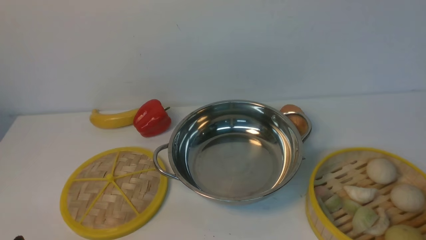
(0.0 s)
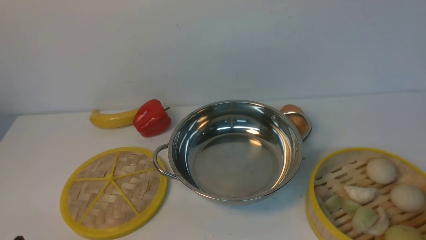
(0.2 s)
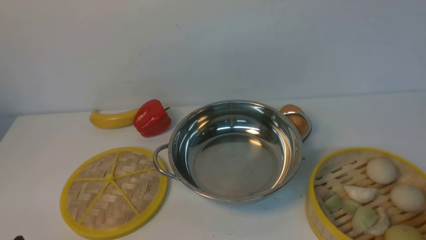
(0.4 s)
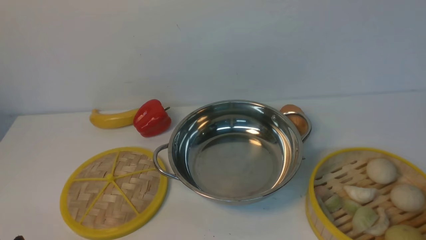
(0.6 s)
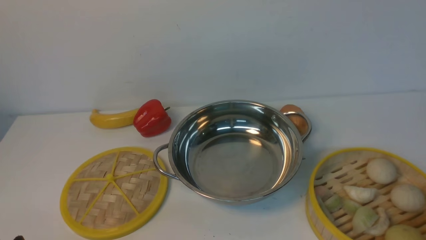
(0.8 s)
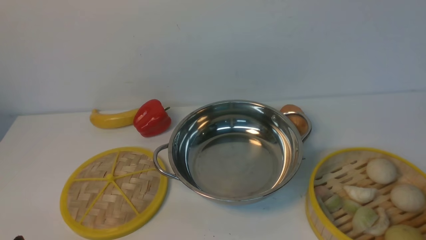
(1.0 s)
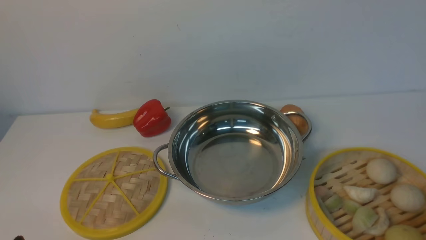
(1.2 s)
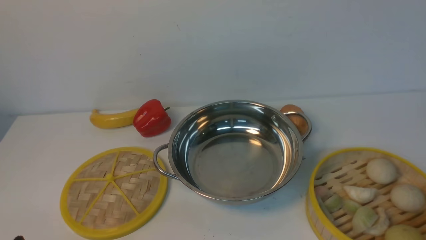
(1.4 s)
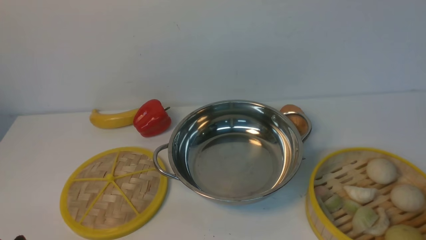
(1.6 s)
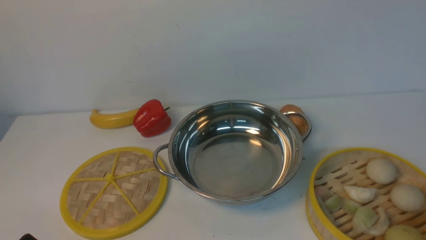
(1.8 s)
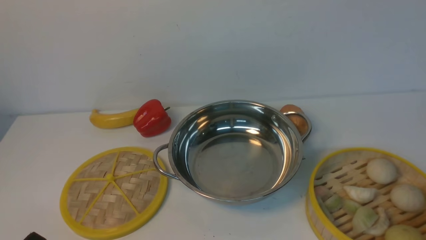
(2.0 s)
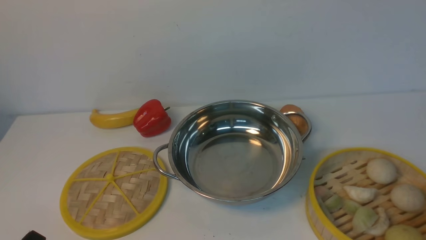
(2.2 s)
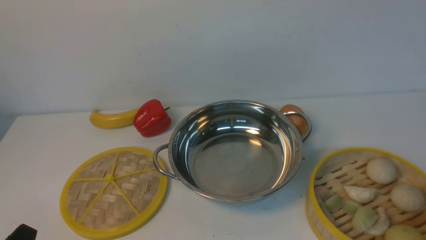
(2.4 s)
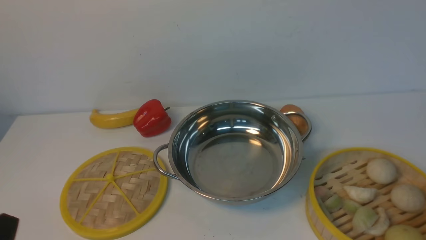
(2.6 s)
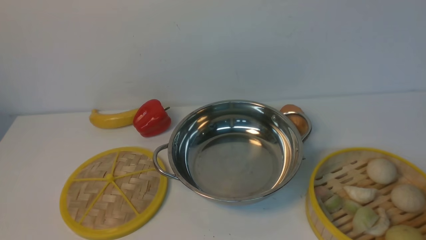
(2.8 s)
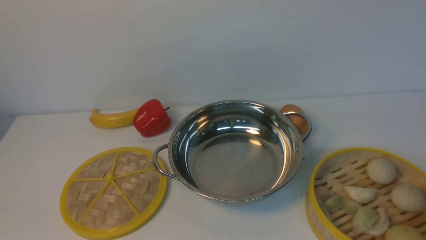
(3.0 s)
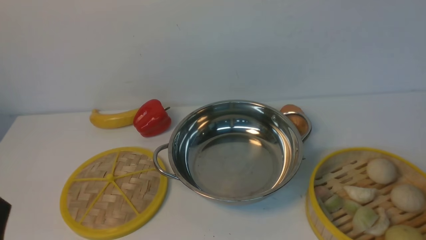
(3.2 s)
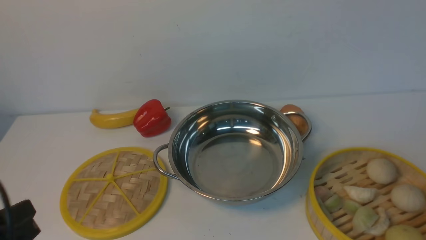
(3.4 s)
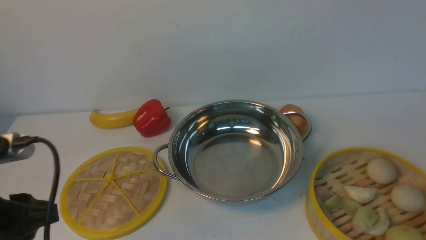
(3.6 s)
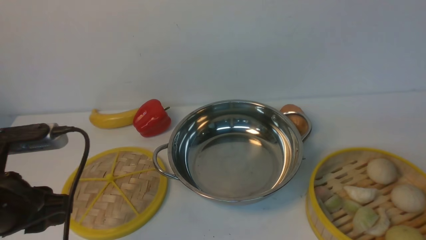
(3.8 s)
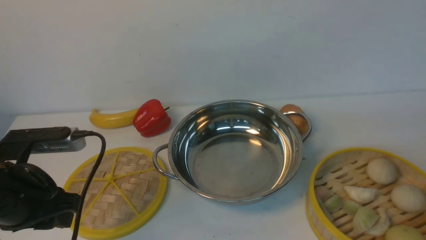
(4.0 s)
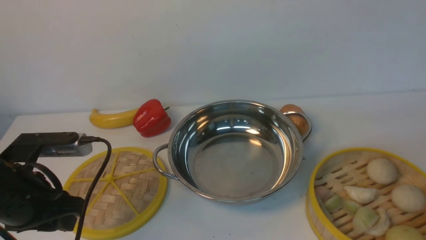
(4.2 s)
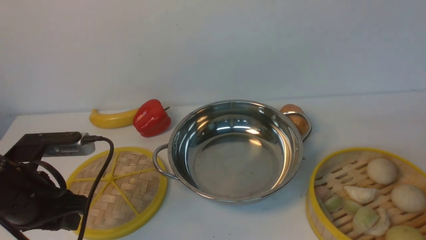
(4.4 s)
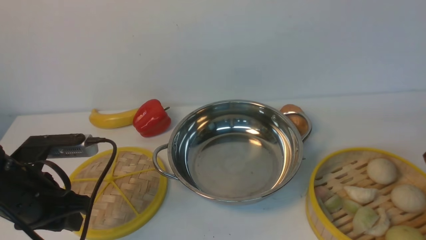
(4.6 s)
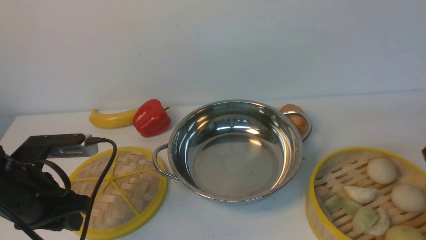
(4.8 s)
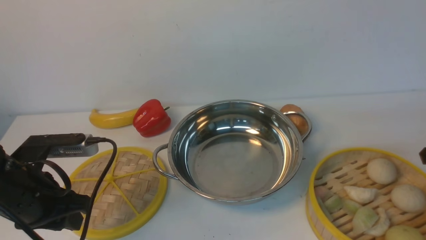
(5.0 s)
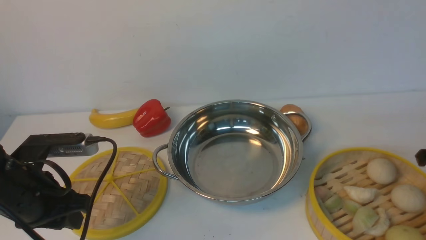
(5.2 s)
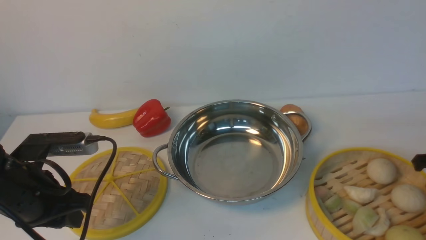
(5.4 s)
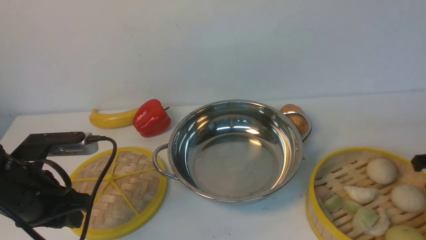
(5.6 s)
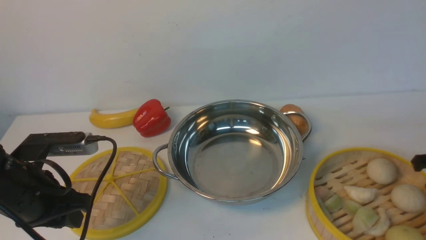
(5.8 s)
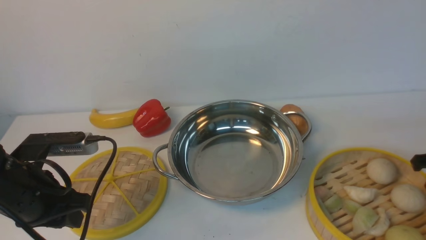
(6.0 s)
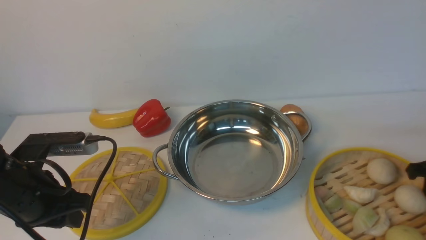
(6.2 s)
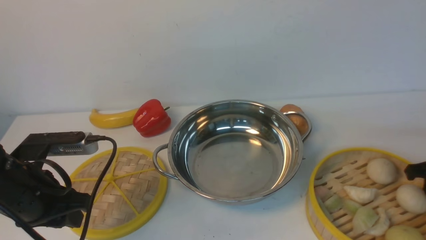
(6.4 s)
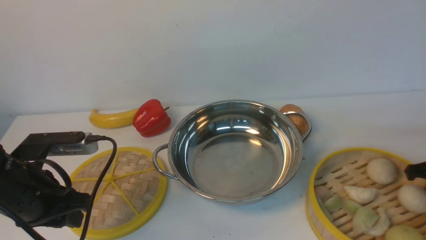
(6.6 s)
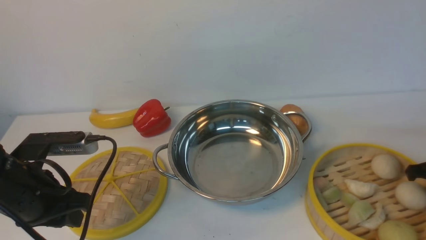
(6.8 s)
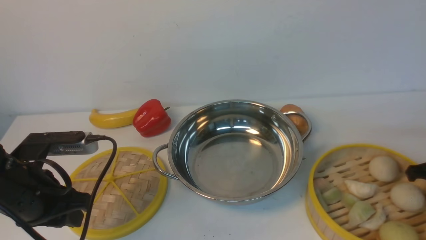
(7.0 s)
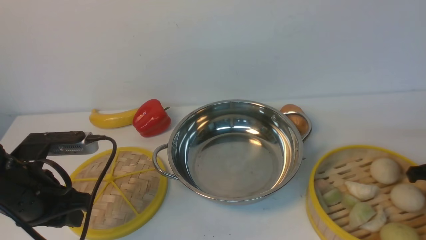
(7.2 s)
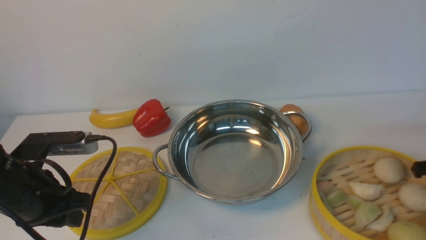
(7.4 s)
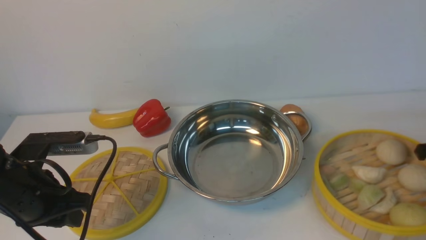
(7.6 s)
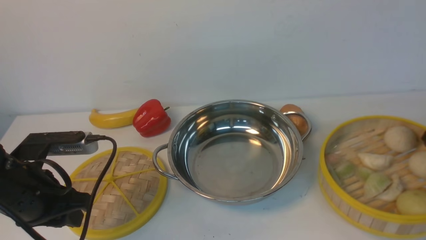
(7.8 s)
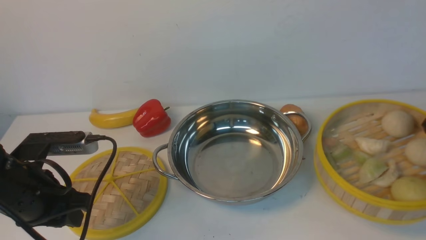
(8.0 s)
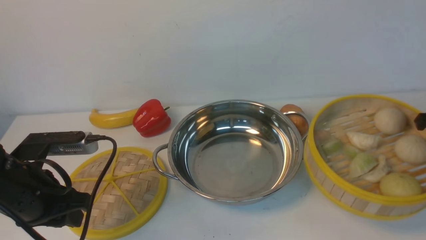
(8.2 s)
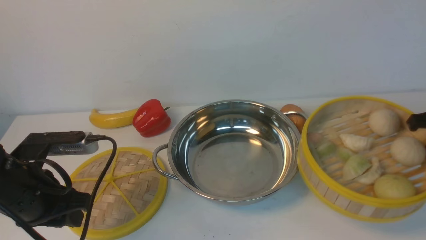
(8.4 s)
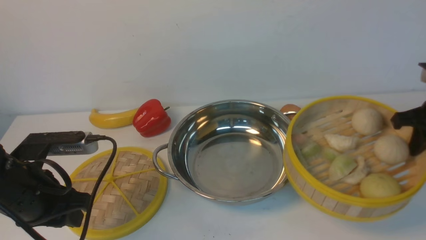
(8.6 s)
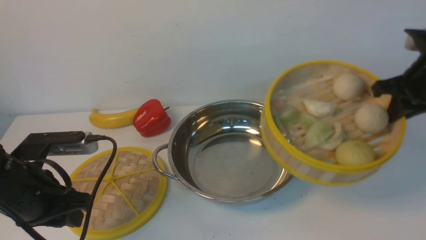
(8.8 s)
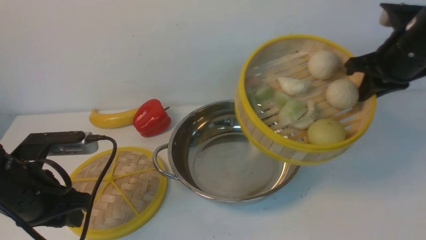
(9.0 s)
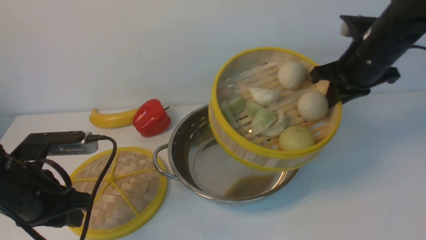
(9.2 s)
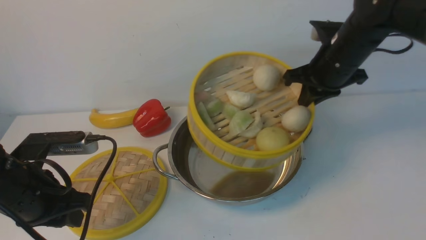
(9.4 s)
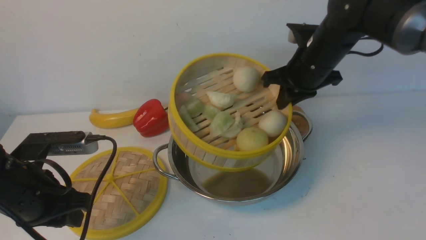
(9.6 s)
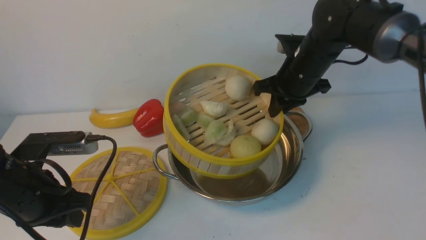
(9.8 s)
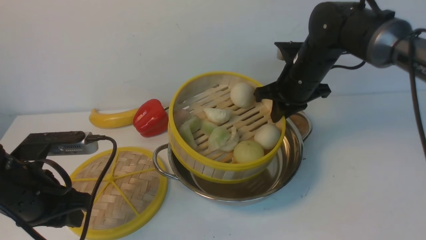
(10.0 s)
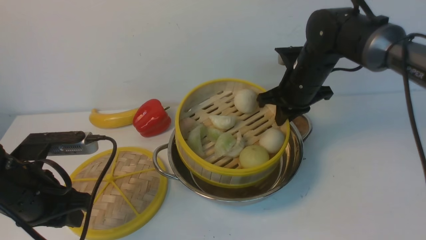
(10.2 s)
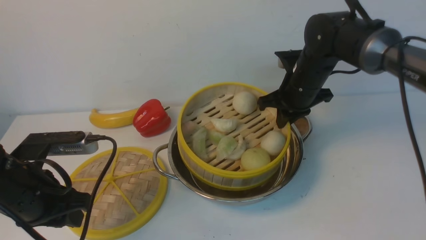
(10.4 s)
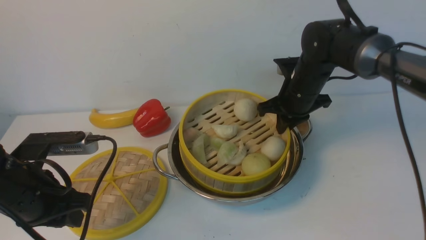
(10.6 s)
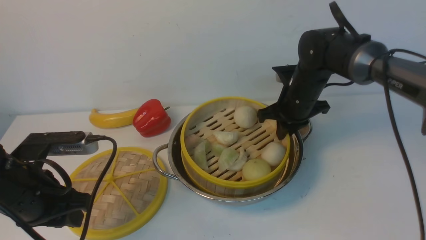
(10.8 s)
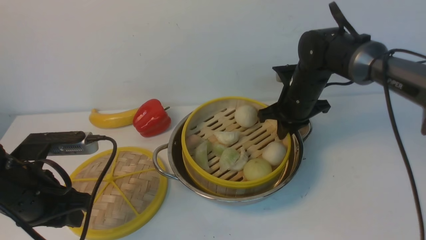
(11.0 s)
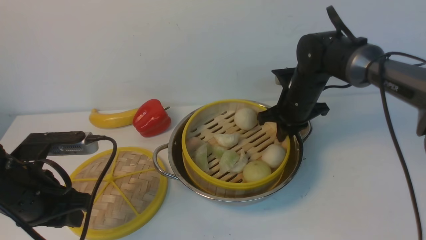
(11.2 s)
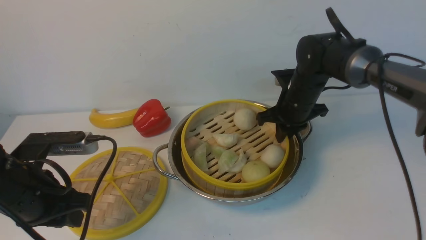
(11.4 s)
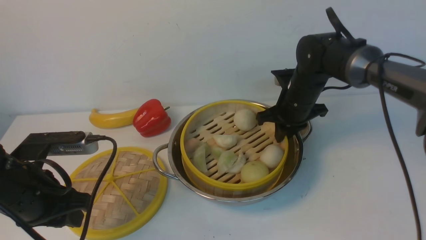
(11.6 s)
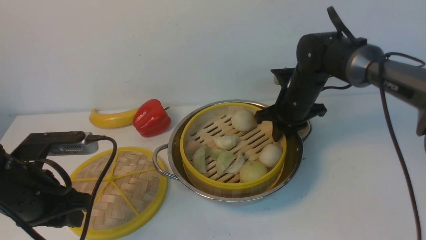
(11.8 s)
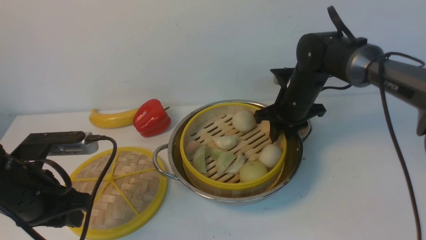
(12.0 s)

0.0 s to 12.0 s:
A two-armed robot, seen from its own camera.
Task of the whole recording: place the steamer in the pot on the white table, and put the lid on the steamer.
Step, 0.0 to 8.0 s: use the right arm to lift the steamer closest to it.
3.0 to 4.4 s: The left gripper travels forward by roughly 15 cm.
6.0 to 7.6 s: The right gripper closes.
7.6 to 9.0 s: The right gripper heads upward, to the left and forward, covering approximately 15 cm.
9.0 to 10.4 s: The right gripper goes some 15 cm to the left, downward and forward.
10.4 to 12.0 s: The right gripper opens up.

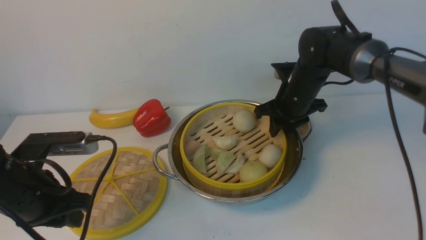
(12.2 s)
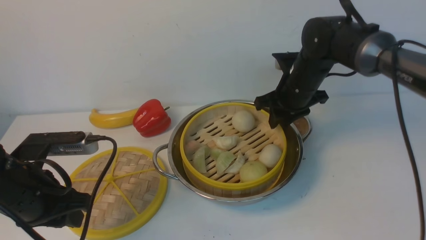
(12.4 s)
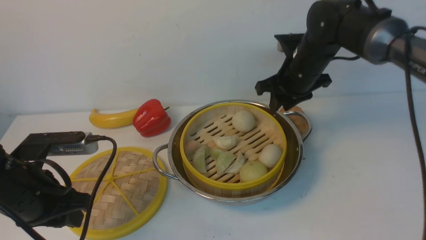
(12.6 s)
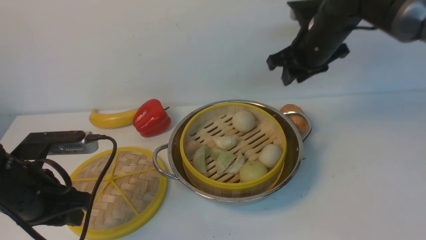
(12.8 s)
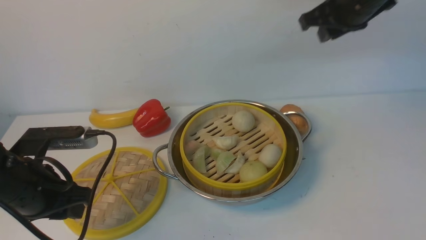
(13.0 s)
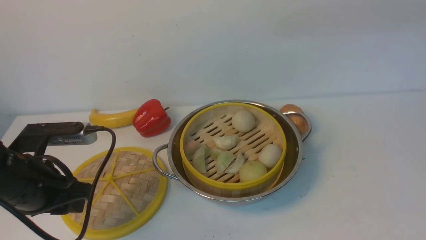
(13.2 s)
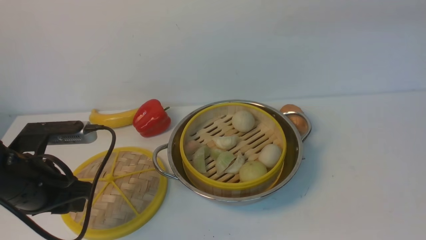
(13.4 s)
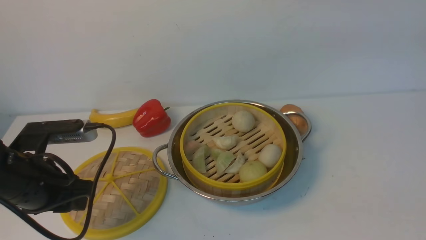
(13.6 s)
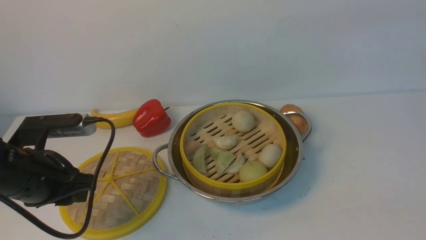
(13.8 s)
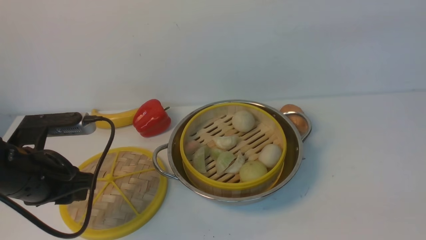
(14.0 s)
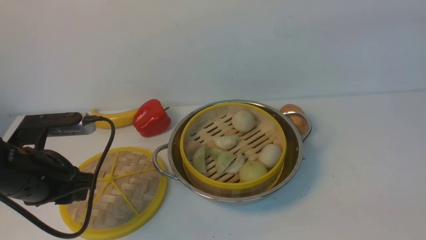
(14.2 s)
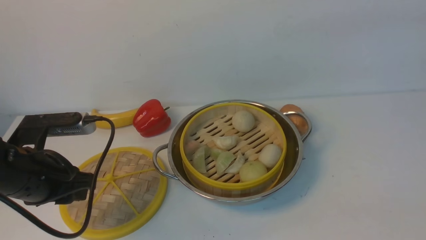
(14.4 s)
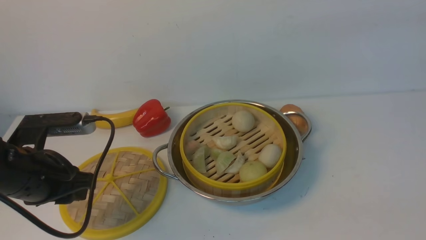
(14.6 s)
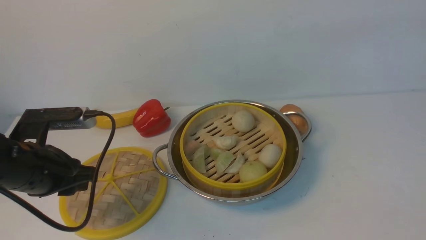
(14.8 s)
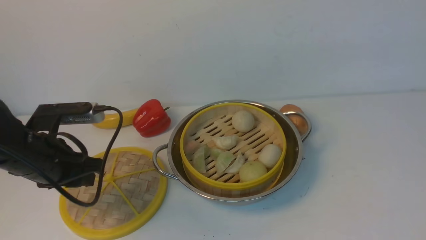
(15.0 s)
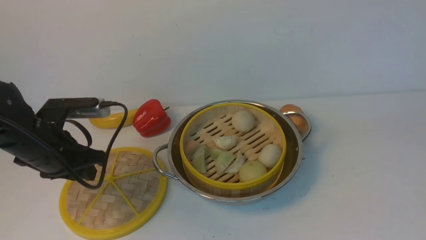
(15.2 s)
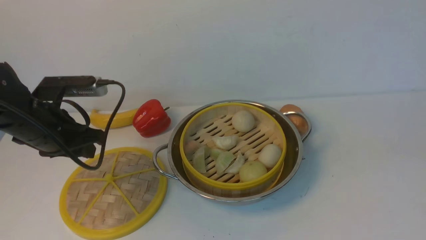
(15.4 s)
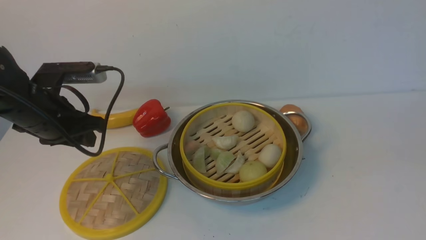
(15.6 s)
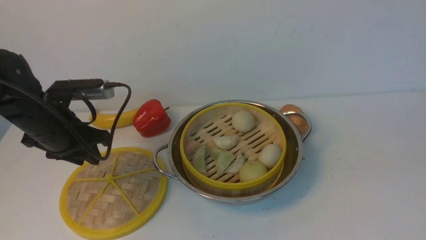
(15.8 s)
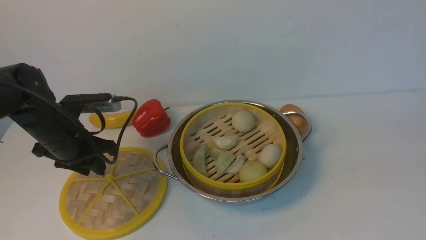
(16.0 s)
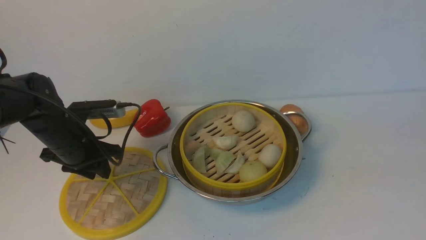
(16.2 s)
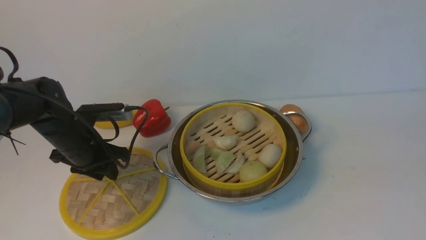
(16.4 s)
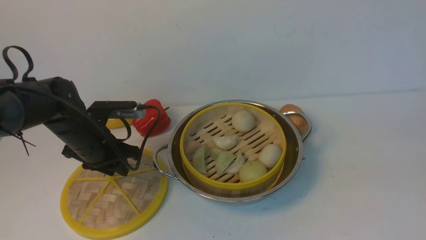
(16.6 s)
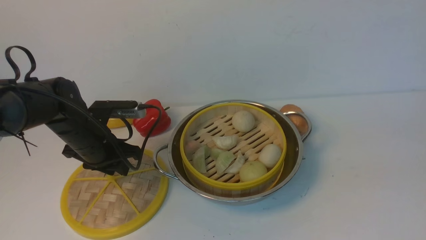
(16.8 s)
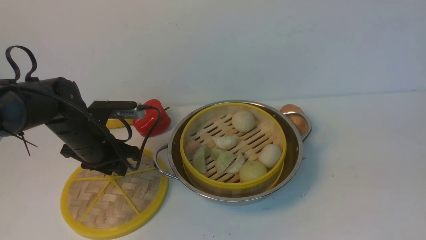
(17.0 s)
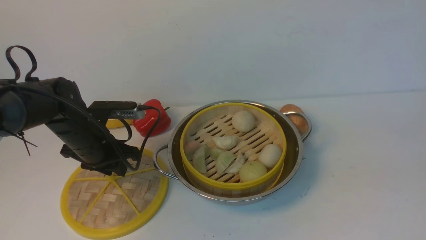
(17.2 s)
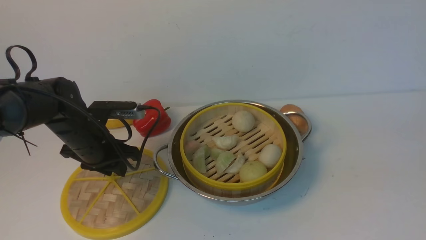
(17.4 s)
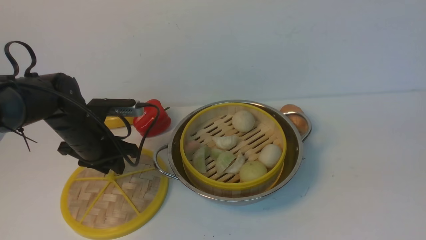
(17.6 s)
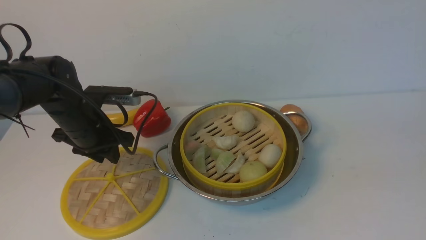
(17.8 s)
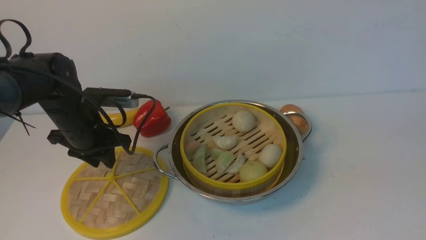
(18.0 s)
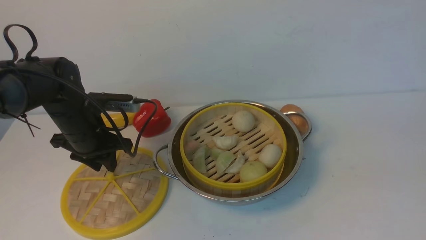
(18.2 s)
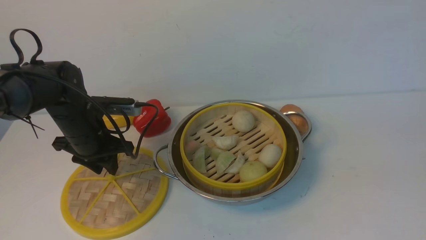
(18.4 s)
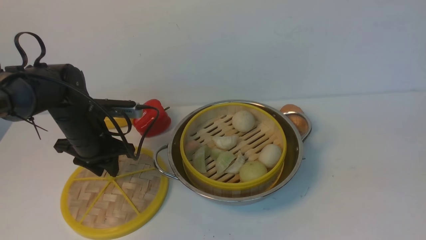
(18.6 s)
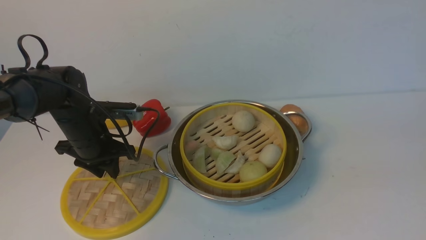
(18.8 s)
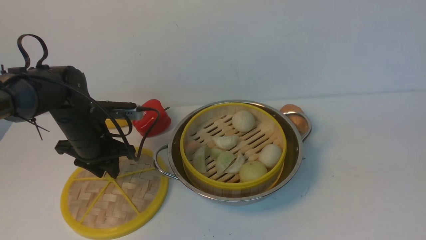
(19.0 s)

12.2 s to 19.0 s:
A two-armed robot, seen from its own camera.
Task of the whole recording: place the steamer in the pot on the white table, and put the lid on the steamer.
12.2 to 13.6 s: The right gripper goes some 35 cm upward, backward and to the right, and closes up.
15.0 to 16.2 s: The left gripper is displaced forward by some 10 cm.
16.2 to 19.0 s: There are only small adjustments of the grippers.
